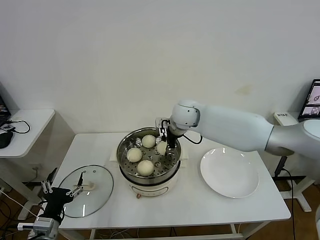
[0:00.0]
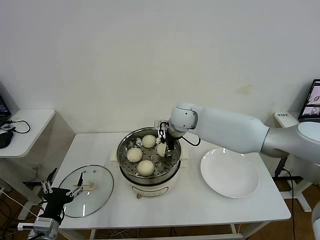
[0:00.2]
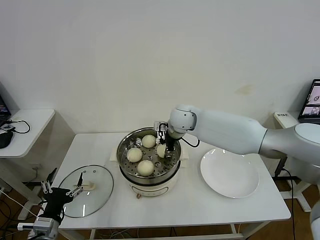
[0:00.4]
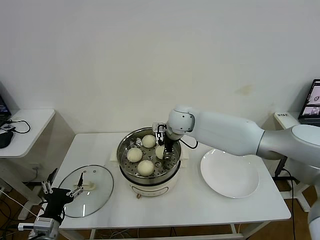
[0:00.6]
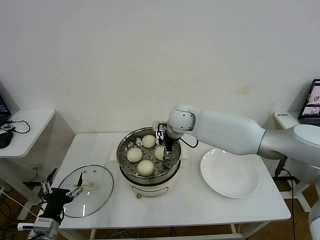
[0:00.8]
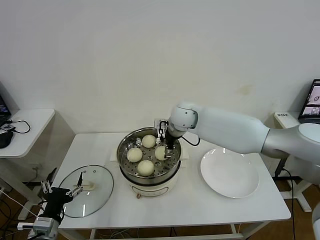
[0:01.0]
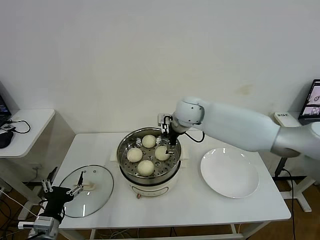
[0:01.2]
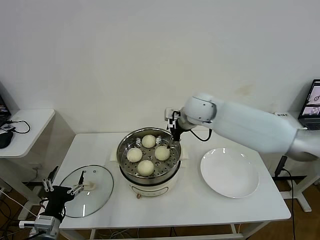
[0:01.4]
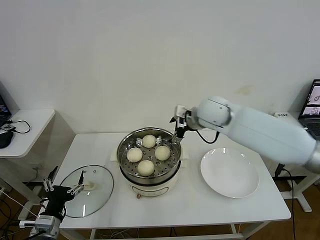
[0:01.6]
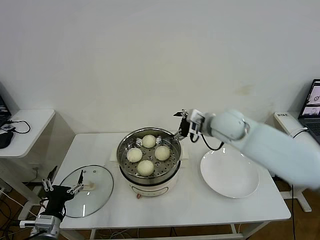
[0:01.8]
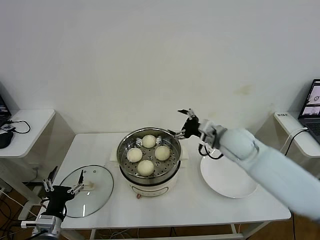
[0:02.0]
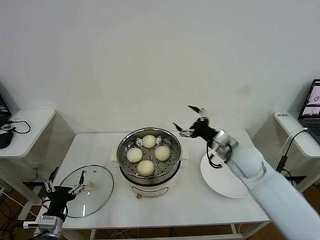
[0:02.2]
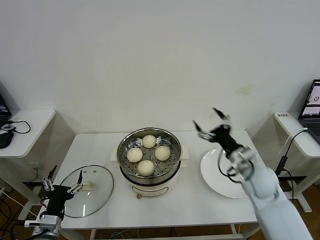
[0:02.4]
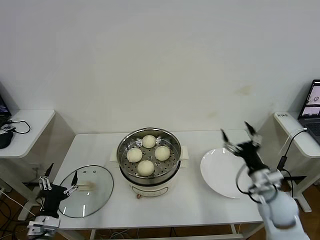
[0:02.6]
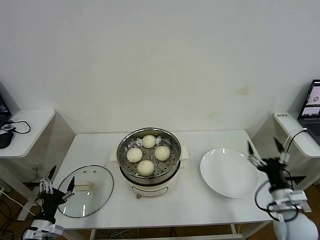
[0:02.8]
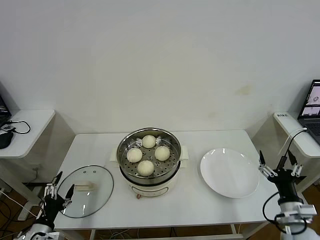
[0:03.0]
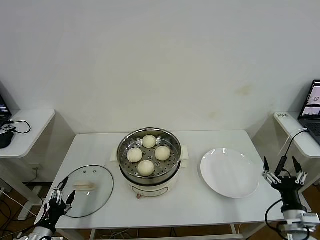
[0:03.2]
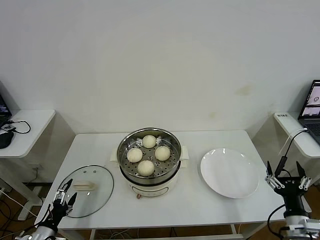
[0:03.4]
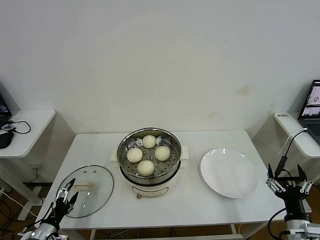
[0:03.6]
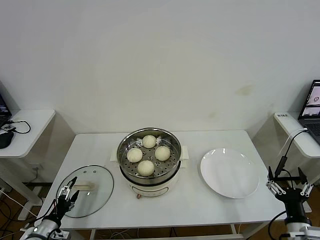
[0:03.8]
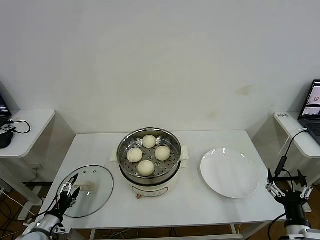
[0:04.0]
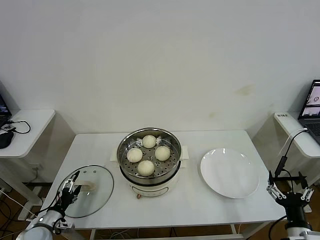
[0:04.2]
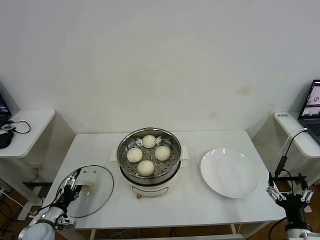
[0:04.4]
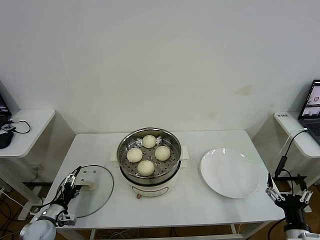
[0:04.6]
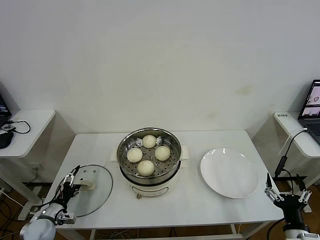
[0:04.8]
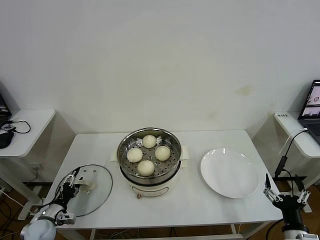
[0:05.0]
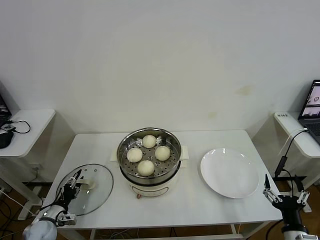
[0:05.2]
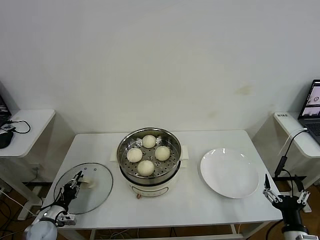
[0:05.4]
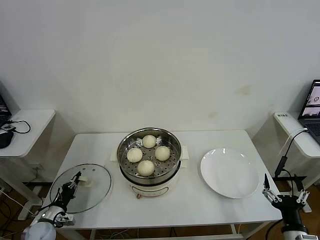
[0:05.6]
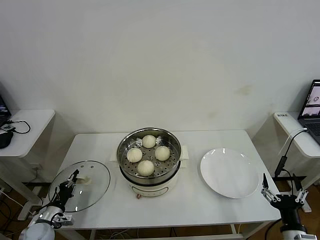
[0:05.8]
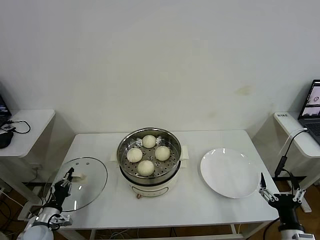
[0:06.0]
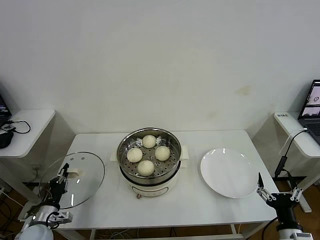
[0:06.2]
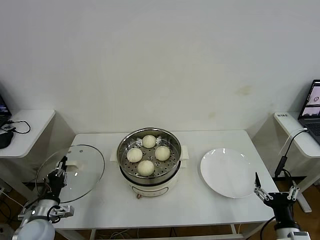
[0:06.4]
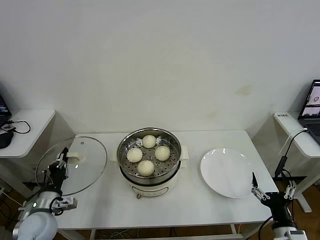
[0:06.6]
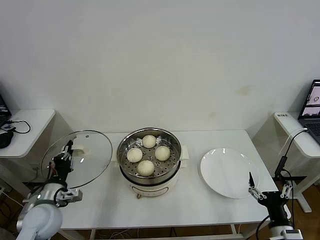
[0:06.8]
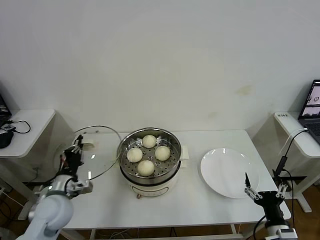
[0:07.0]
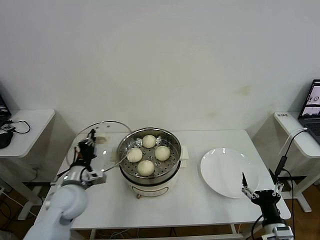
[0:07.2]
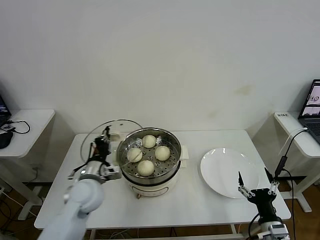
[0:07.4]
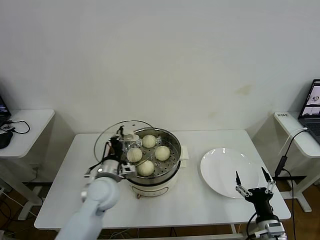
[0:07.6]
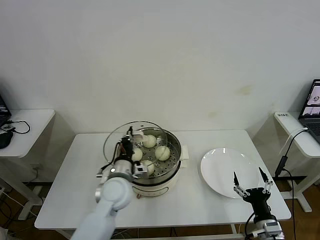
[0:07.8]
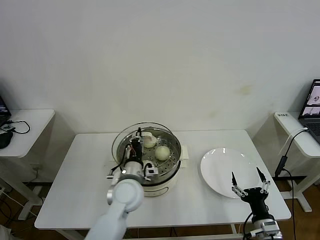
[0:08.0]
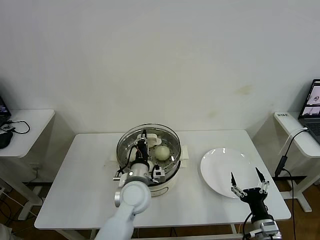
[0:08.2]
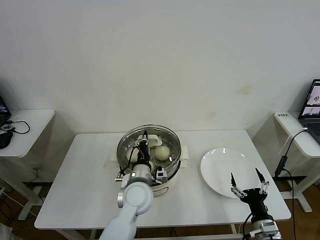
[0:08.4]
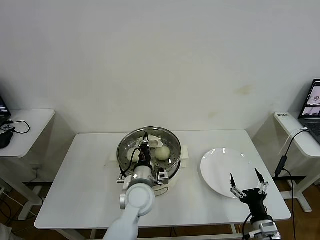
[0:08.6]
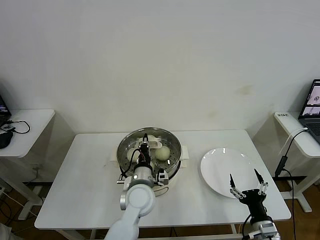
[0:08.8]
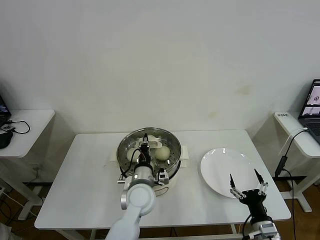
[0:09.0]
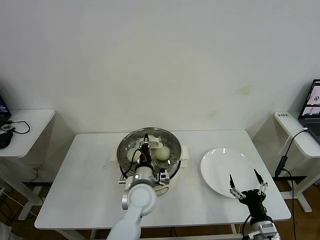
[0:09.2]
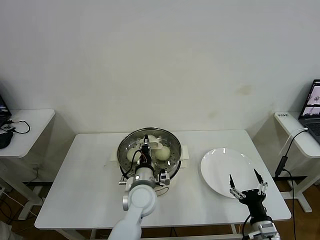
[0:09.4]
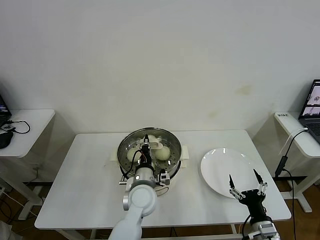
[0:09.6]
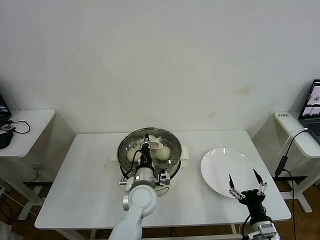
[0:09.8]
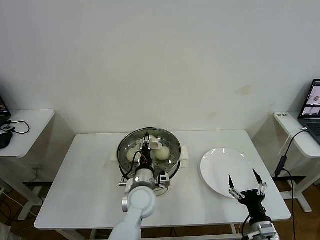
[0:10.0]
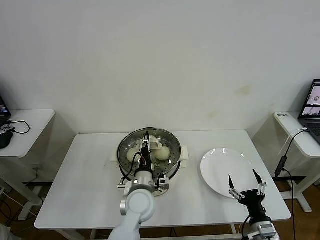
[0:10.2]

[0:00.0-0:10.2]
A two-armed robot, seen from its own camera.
Task of the whole recording: take steamed baozi put them in steamer then cover it.
Step, 0:01.2 to 0:05.6: Grasp the pot lid with left gripper.
0:00.0 to 0:01.4: The right gripper opens.
0:01.4 to 0:03.0: The left gripper goes approximately 10 cm to the left and downward. Meanwhile the right gripper shifts approximately 50 cm backward, to the right and downward.
0:03.0 to 0:04.4: The left gripper goes some 10 cm forward and downward. Meanwhile the right gripper moves backward, approximately 5 cm.
0:04.4 to 0:05.8: The left gripper closes.
0:05.8 to 0:07.2: The left gripper moves upward and to the right, some 25 cm.
0:07.2 to 0:08.8: The left gripper goes approximately 20 cm to the right.
0:08.8 to 0:10.2: The left gripper opens up.

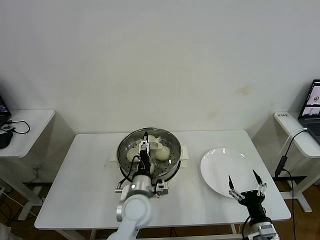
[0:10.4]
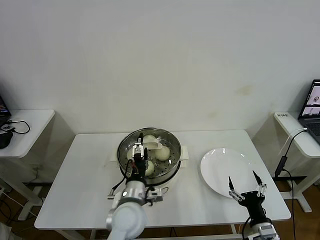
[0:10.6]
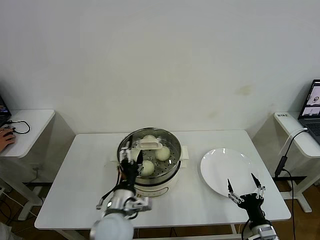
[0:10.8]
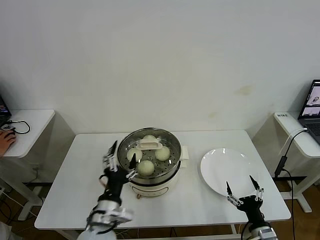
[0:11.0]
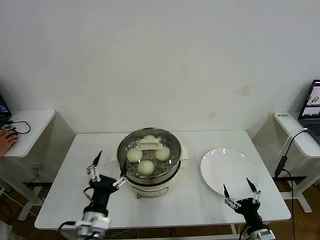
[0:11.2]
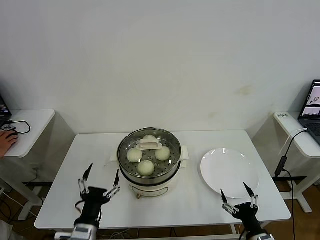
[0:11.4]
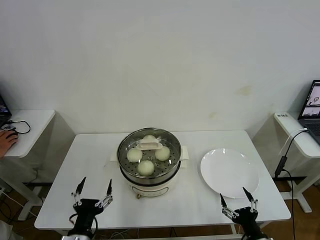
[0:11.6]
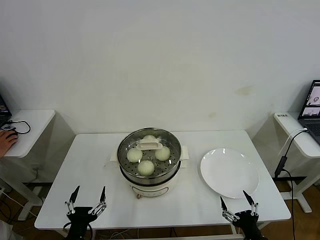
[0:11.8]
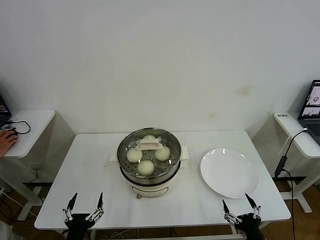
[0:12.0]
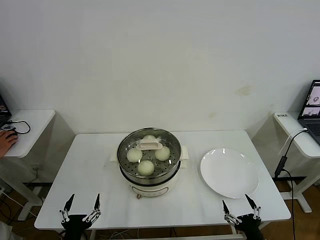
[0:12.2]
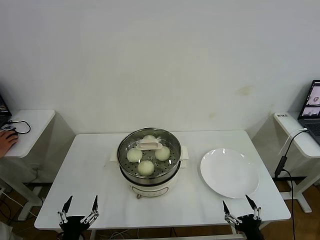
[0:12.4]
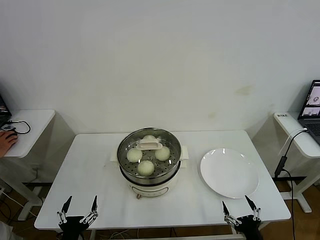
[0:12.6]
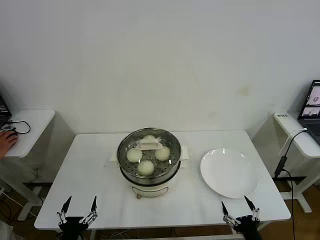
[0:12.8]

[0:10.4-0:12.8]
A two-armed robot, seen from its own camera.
Task of the whole recording: take steamed baozi put them in steamer then cover it.
0:10.4 to 0:11.6: The left gripper goes roughly 25 cm backward and to the left.
0:11.6 to 0:12.8: The left gripper moves to the left, some 5 cm.
